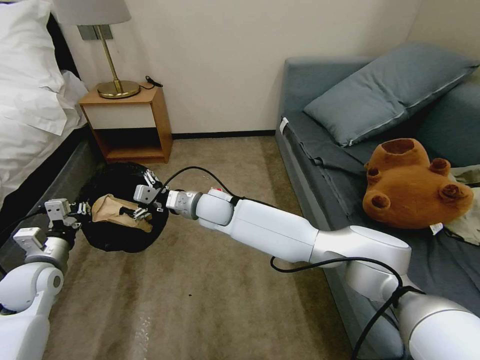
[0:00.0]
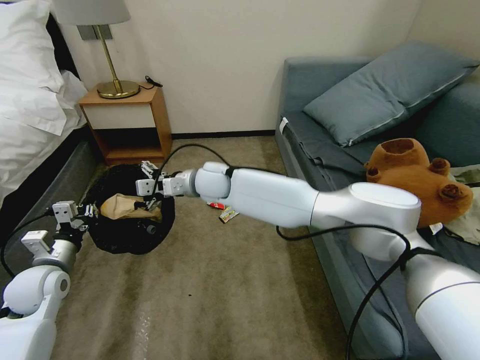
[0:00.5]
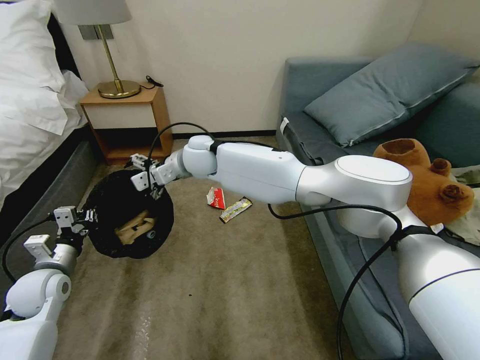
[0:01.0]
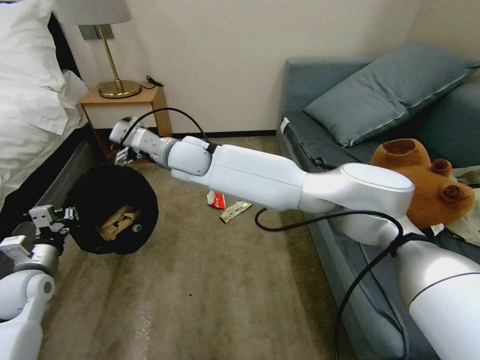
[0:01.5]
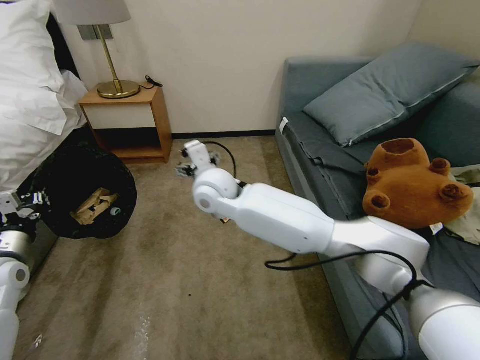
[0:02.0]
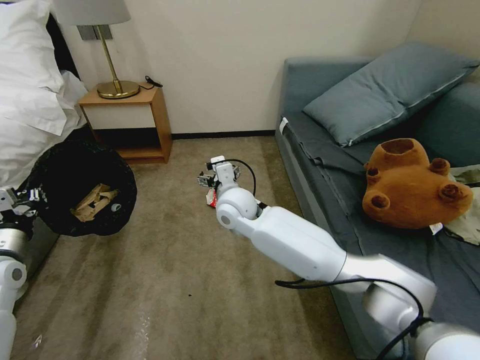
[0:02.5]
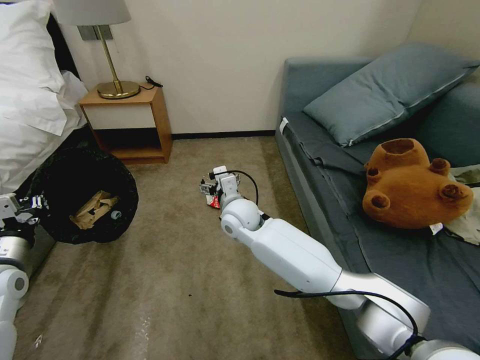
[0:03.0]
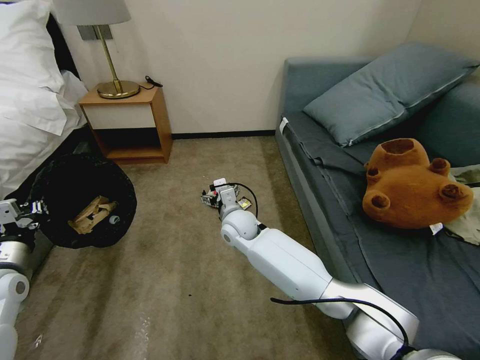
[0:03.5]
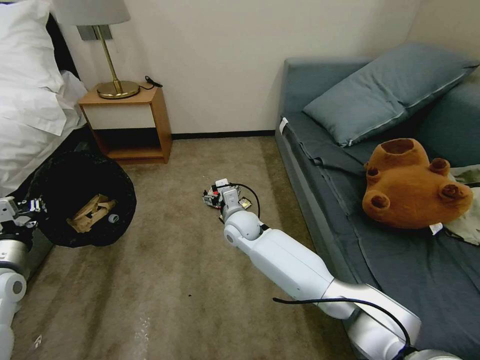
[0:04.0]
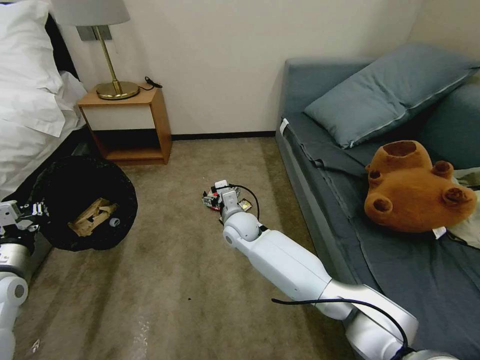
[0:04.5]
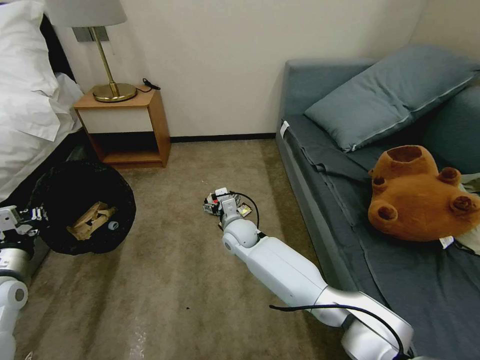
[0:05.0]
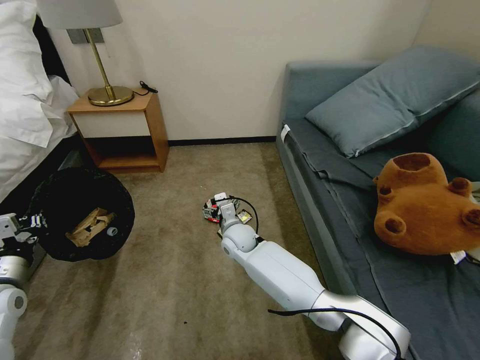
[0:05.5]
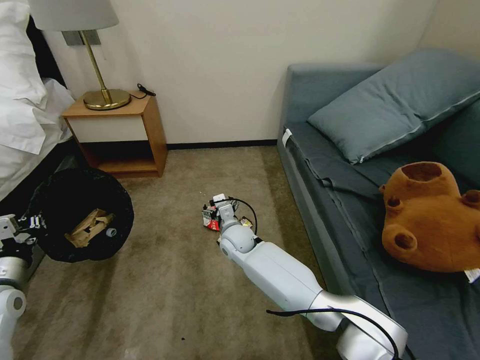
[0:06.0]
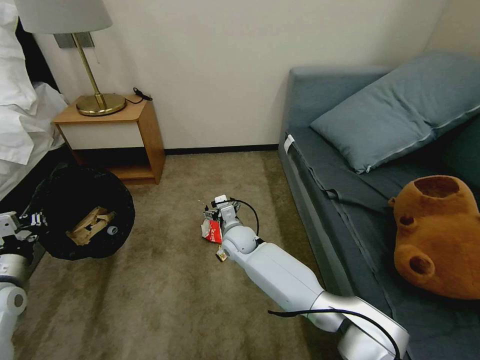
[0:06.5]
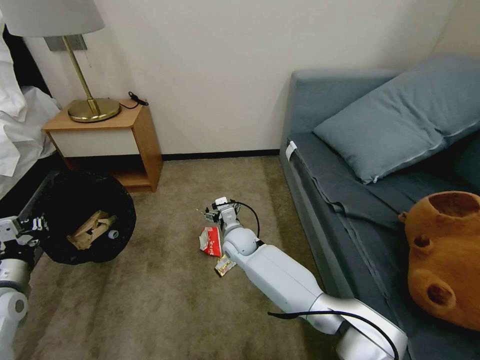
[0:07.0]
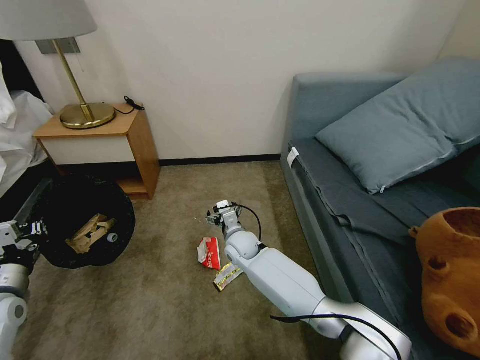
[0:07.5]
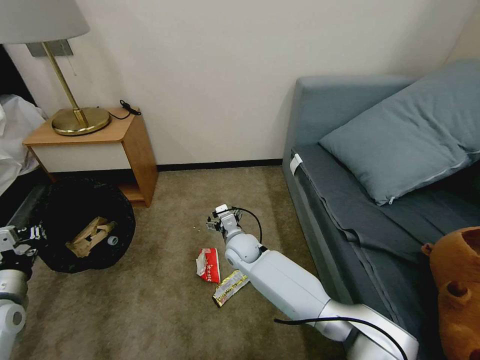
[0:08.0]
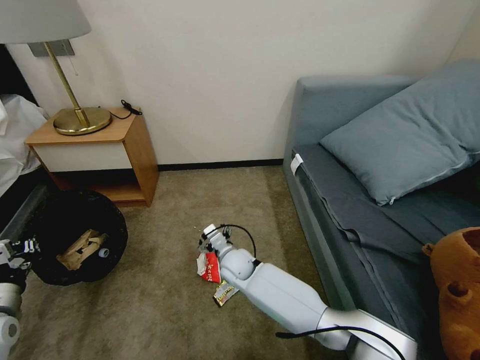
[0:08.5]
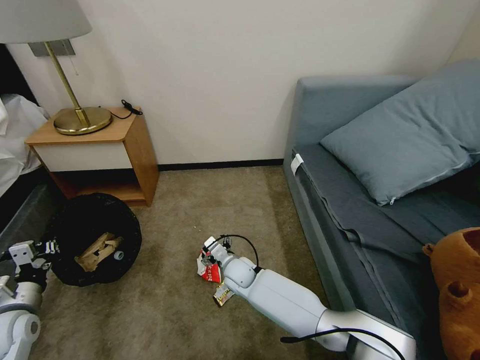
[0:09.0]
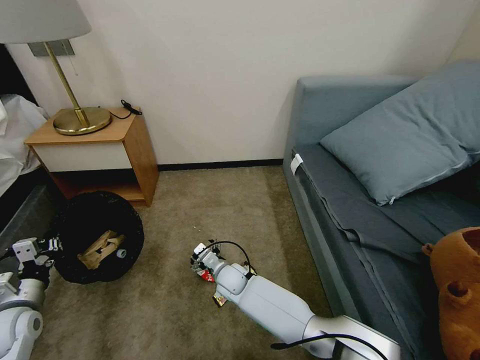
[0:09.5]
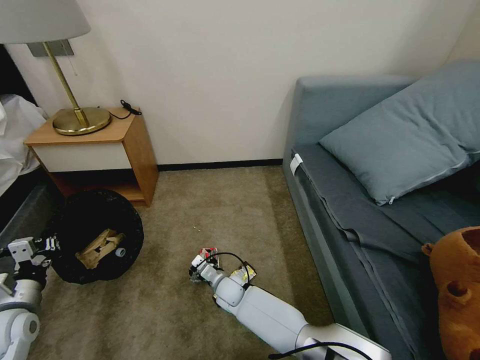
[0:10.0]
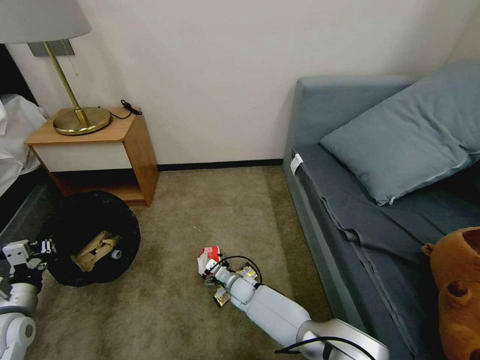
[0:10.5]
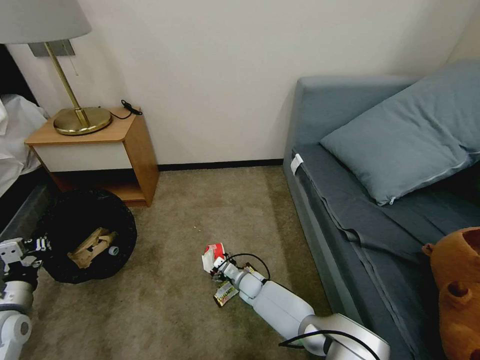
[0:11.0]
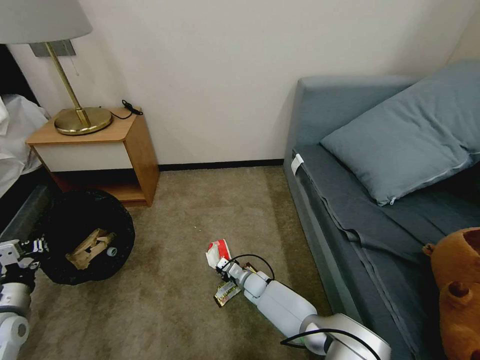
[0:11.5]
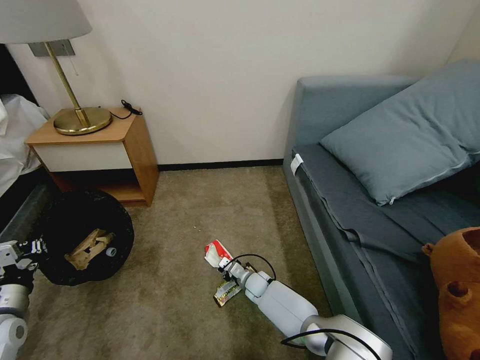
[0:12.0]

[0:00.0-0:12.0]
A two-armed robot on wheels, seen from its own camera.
Task of the whole recording: Pick up the trash bin, then pick up the garbage on the floor and place it into the trash bin.
0:00.0 to 0:02.0: The right gripper shifts roughly 10 cm upward. Meanwhile the left gripper moves to the left, roughly 5 cm.
0:02.0 to 0:04.0: The right gripper shifts approximately 15 cm downward.
0:04.0 to 0:06.0: The right gripper goes approximately 5 cm downward.
0:08.0 to 0:10.0: The right gripper shifts roughly 15 cm downward and backward.
0:10.0 to 0:12.0: The right gripper goes about 10 cm to the right and downward, and closes its fingers.

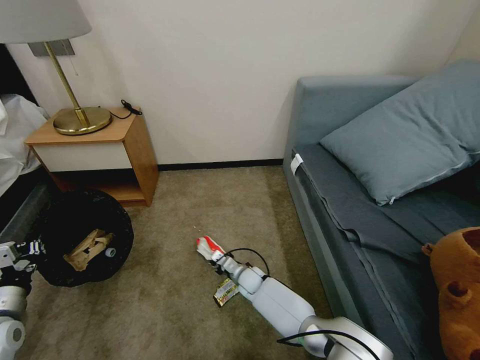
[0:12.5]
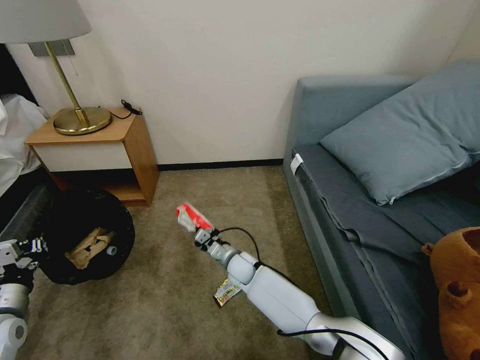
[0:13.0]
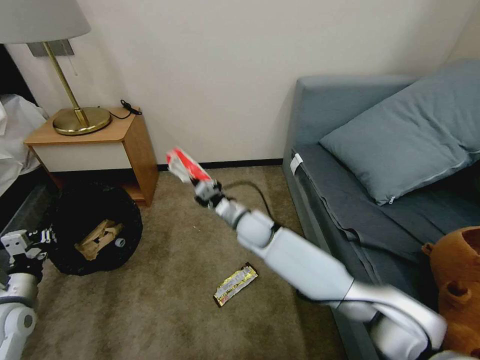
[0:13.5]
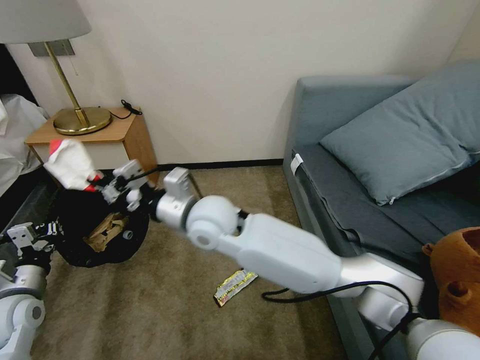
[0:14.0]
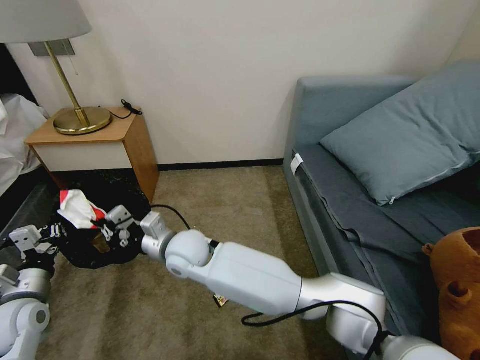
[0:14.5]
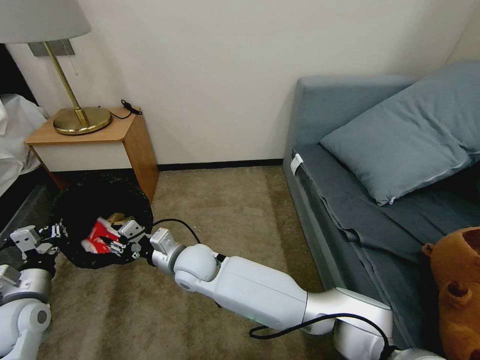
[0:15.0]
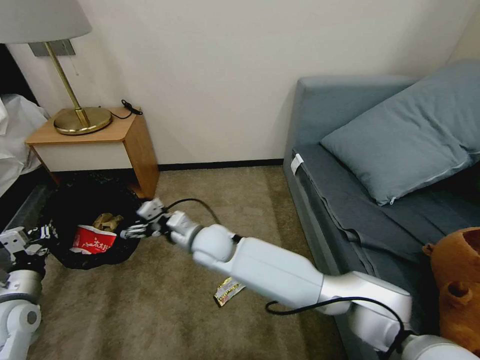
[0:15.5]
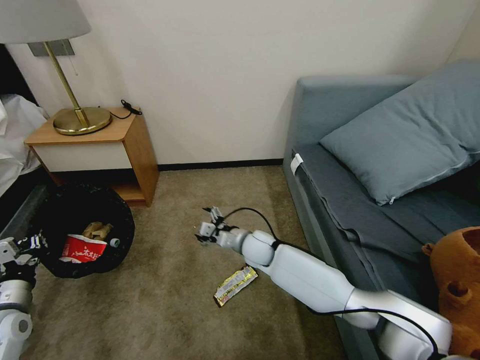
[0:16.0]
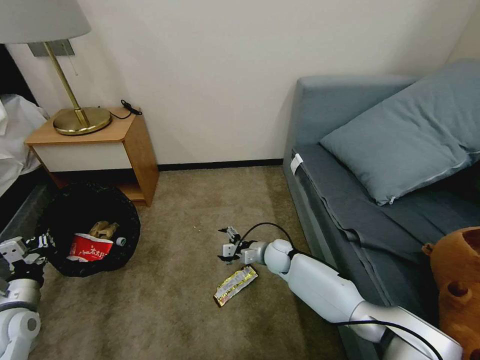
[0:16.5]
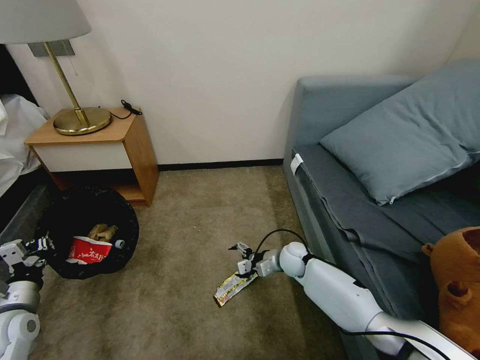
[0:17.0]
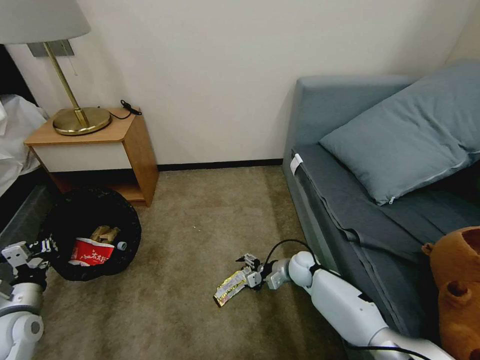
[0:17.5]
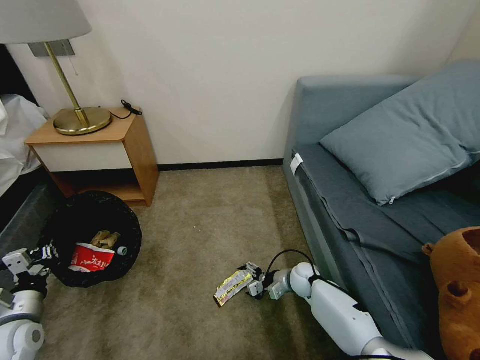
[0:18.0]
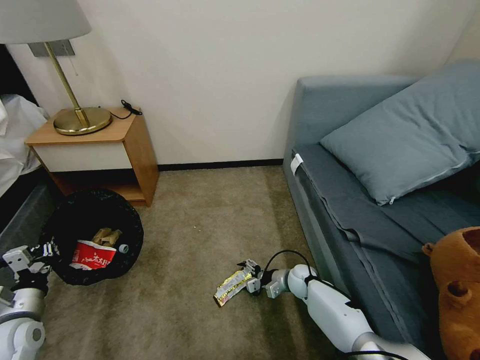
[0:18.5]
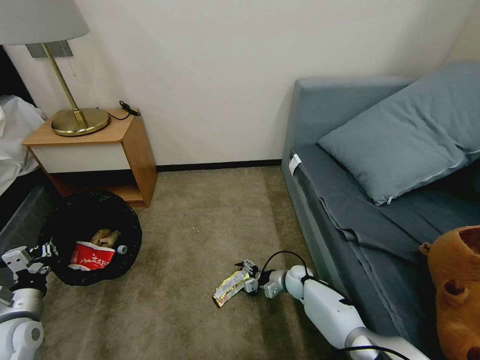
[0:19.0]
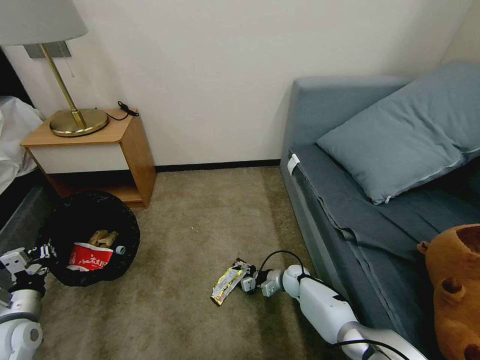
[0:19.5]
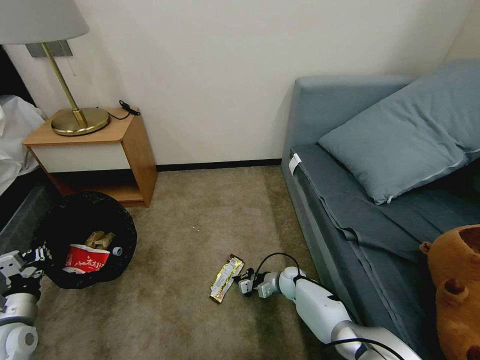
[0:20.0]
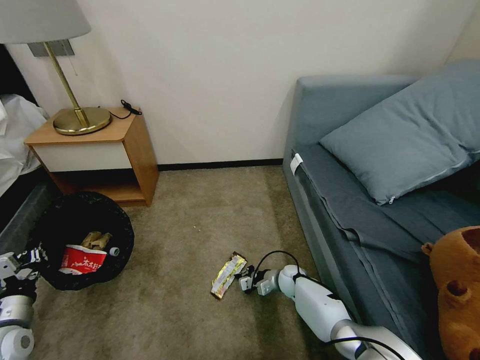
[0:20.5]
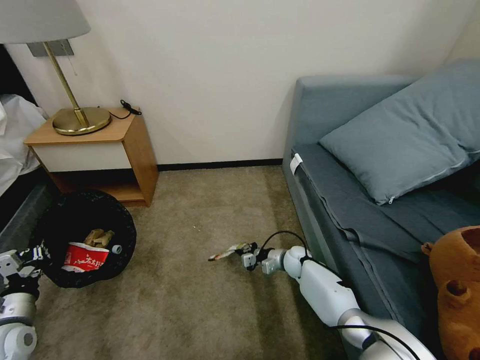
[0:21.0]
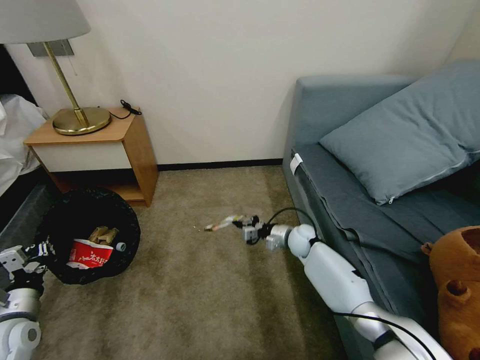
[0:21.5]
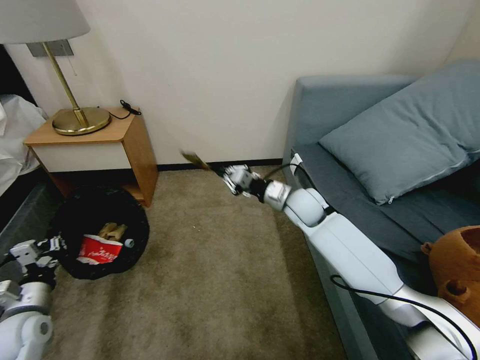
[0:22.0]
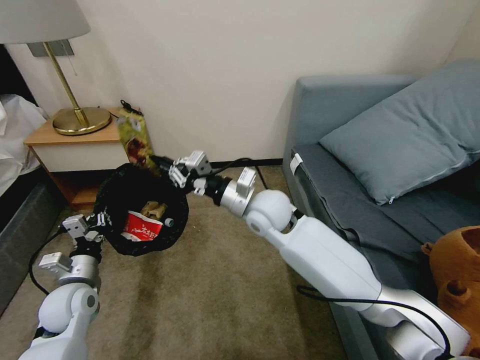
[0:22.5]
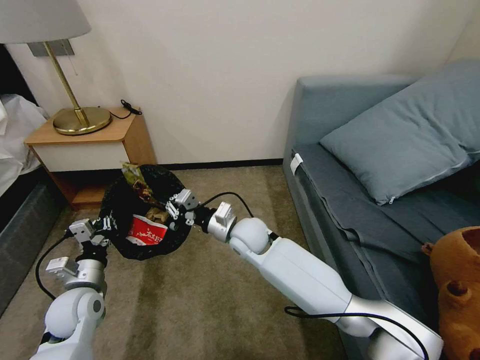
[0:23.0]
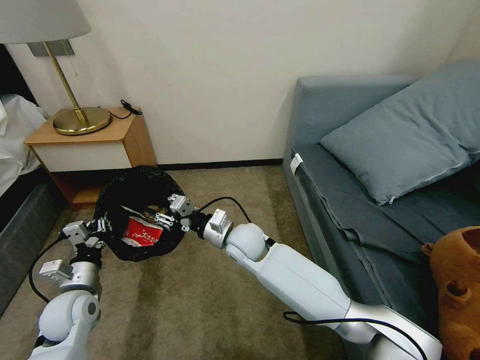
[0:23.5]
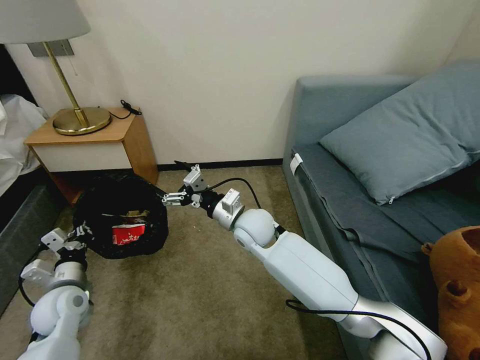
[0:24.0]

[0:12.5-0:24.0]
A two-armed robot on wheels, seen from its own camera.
Task of the whole recording: Pick up the trash bin, then pick up the garbage on the floor and place it into the trash bin.
0:12.5 to 0:14.5: The left gripper shifts by roughly 5 cm. Meanwhile the right gripper is displaced upward and to the left by about 35 cm.
0:14.5 to 0:16.5: The right gripper shifts about 30 cm to the right and downward, and opens up.
0:16.5 to 0:18.5: The right gripper goes roughly 10 cm downward and to the right.
0:18.5 to 0:20.0: The right gripper closes up.
0:20.0 to 0:22.0: The right gripper is displaced upward by about 30 cm.
0:22.0 to 0:24.0: The left gripper travels to the right by roughly 5 cm; the right gripper is displaced to the left and backward by some 15 cm, and opens.

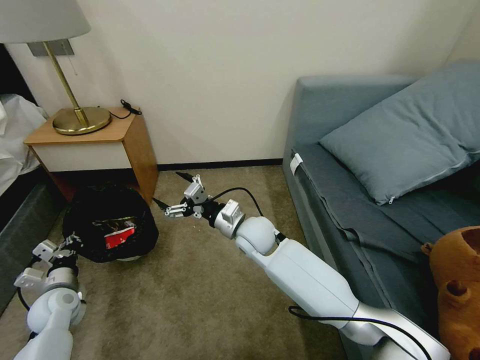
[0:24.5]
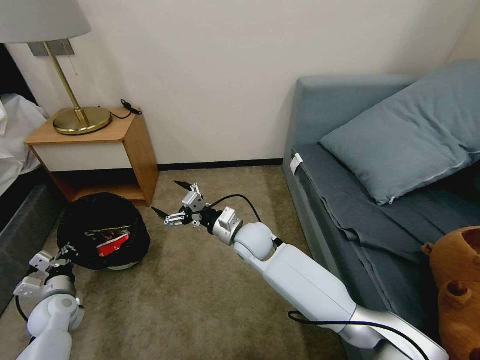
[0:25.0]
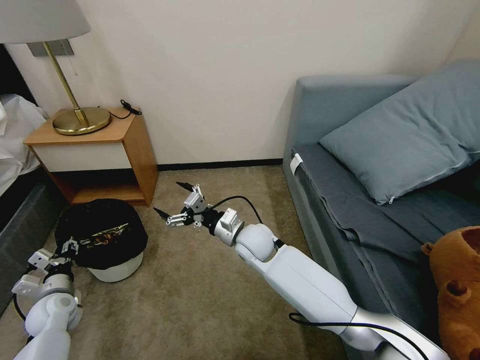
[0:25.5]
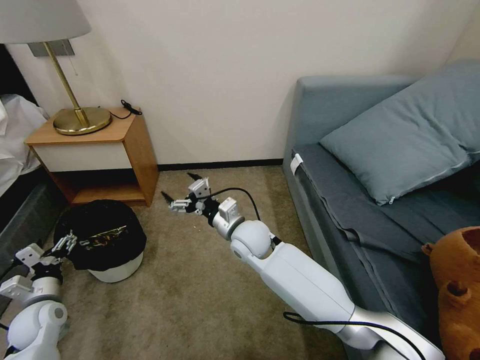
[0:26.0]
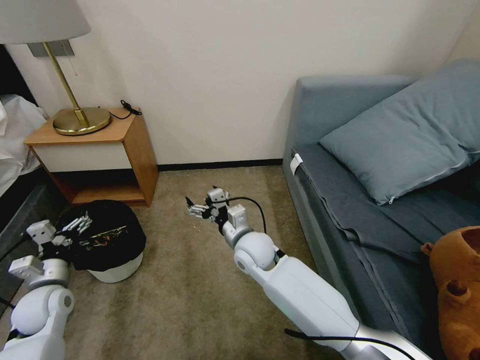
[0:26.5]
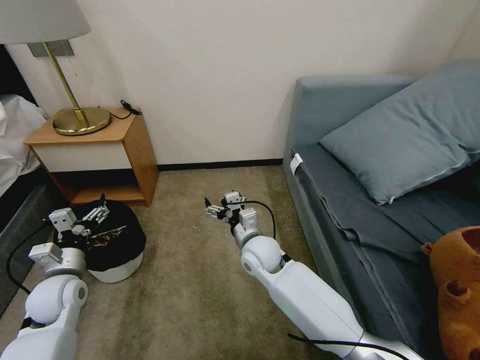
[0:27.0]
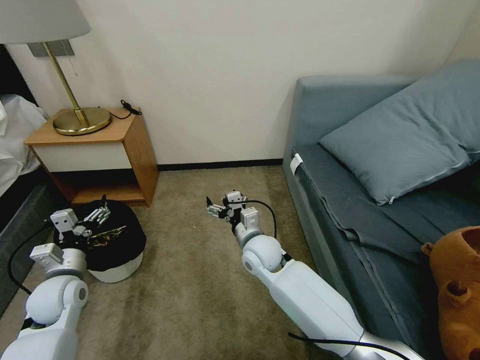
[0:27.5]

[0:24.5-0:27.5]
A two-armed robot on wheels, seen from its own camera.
Task of the whole recording: Pick up the trash bin, then pick up the garbage on the floor and place it into the trash bin.
0:24.5 to 0:26.0: The left gripper opens its fingers.
0:26.0 to 0:27.5: The right gripper shifts by approximately 5 cm. The left gripper shifts roughly 10 cm upward and to the right.
